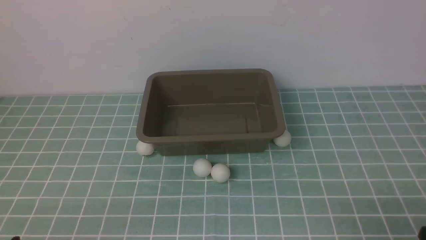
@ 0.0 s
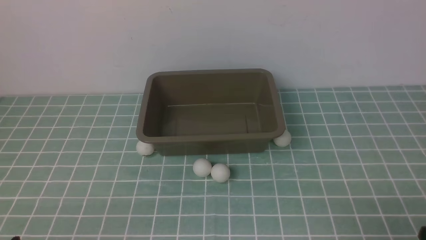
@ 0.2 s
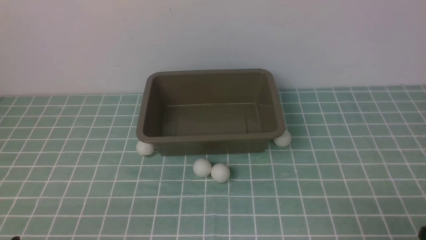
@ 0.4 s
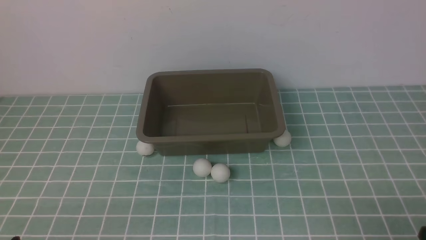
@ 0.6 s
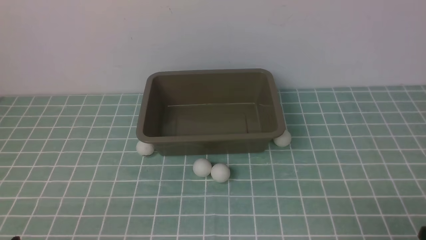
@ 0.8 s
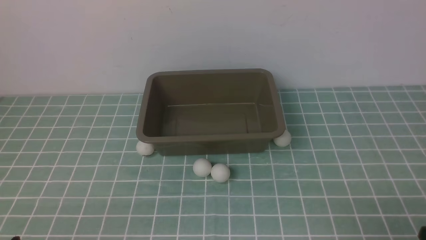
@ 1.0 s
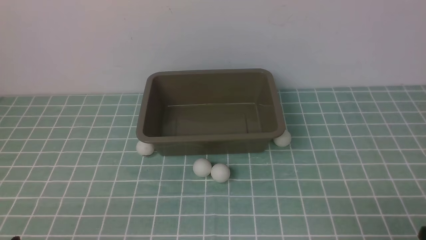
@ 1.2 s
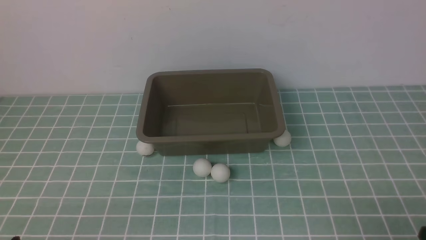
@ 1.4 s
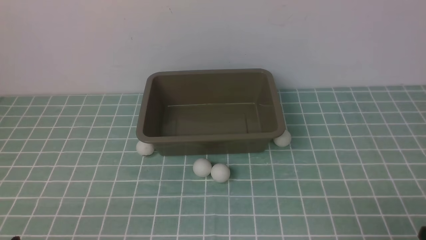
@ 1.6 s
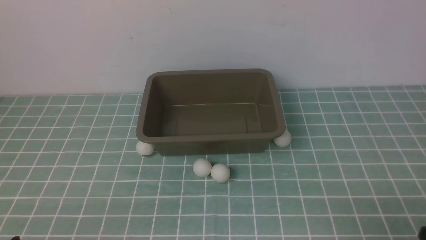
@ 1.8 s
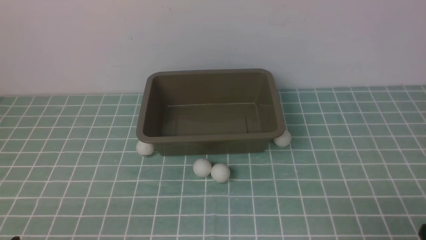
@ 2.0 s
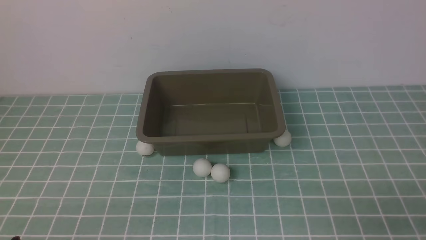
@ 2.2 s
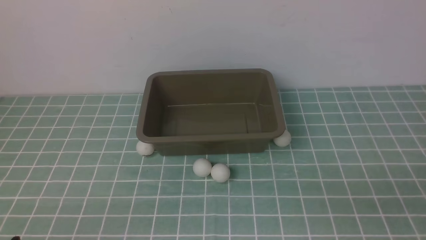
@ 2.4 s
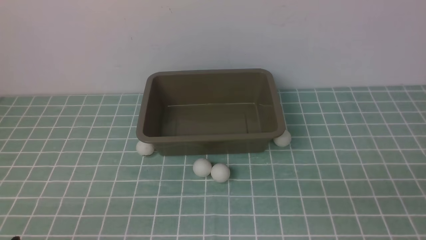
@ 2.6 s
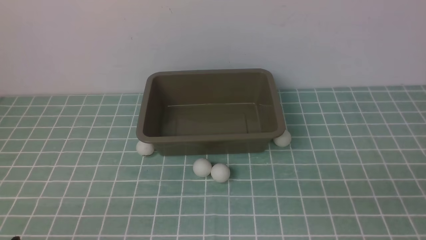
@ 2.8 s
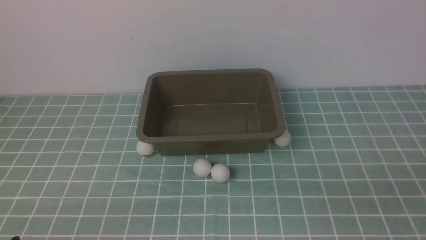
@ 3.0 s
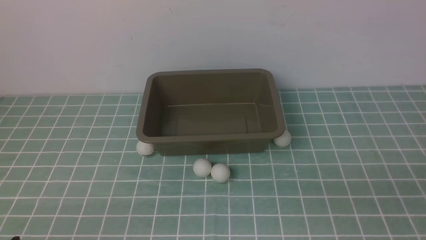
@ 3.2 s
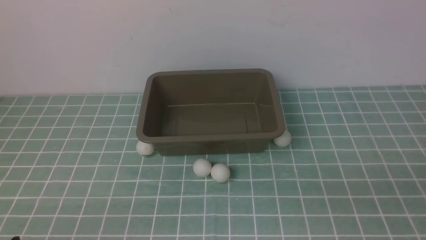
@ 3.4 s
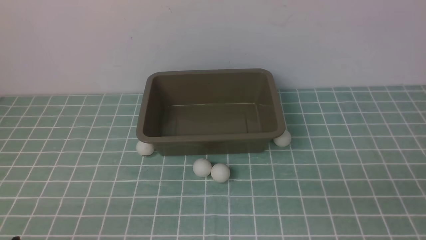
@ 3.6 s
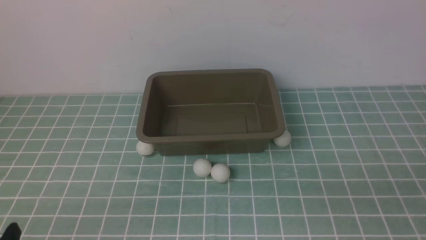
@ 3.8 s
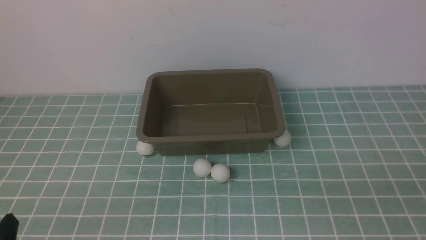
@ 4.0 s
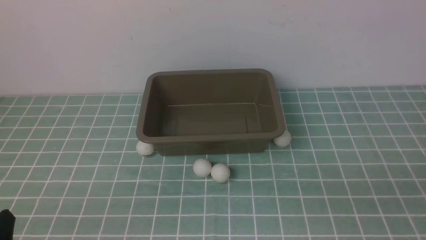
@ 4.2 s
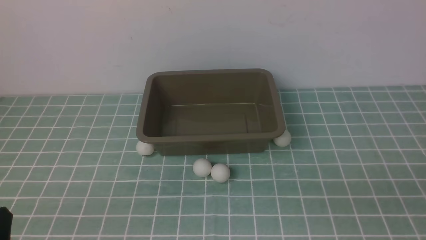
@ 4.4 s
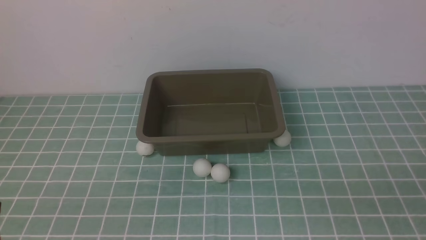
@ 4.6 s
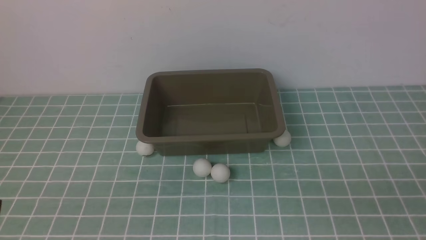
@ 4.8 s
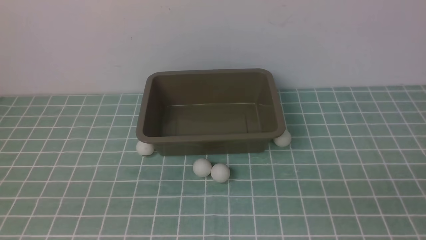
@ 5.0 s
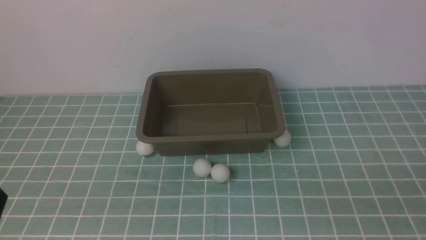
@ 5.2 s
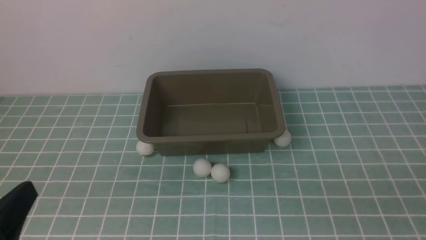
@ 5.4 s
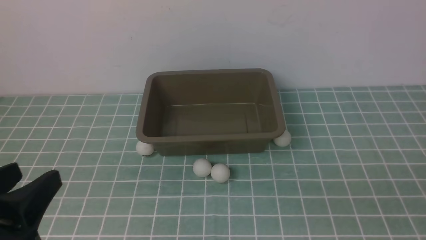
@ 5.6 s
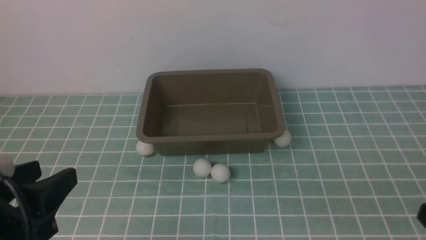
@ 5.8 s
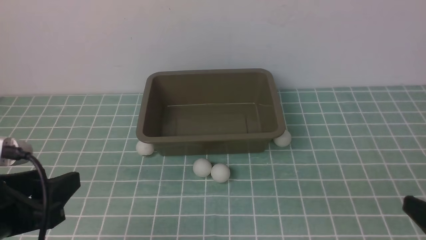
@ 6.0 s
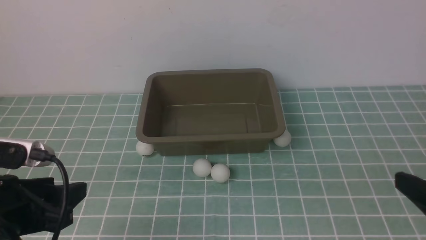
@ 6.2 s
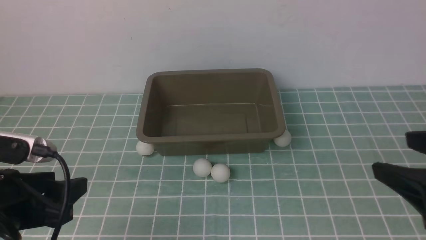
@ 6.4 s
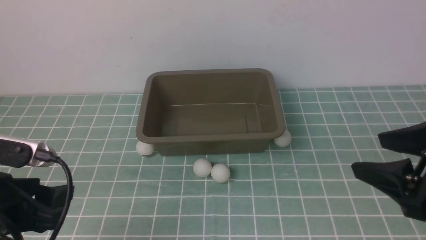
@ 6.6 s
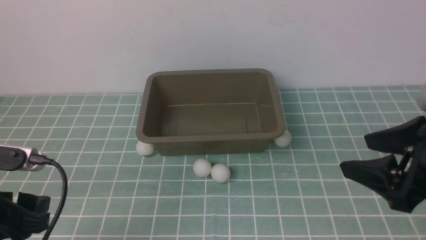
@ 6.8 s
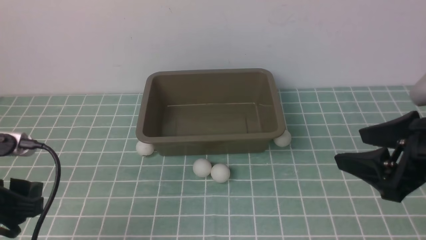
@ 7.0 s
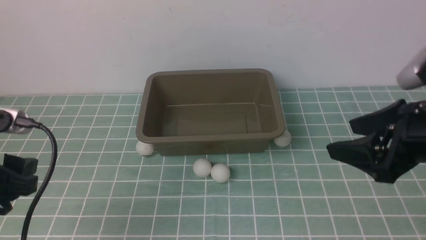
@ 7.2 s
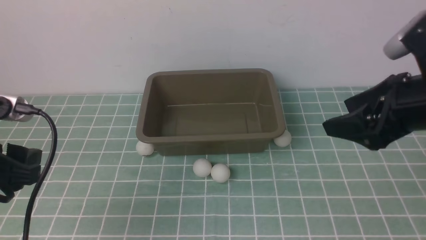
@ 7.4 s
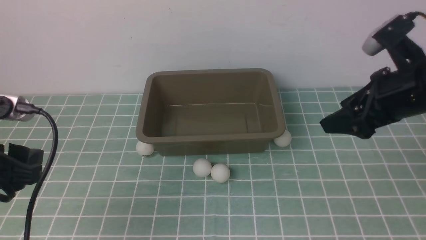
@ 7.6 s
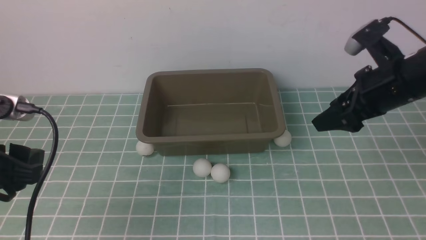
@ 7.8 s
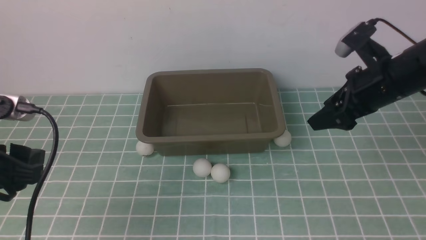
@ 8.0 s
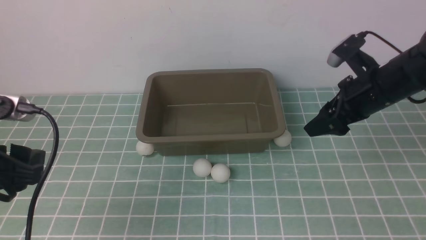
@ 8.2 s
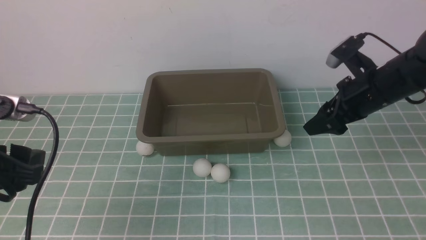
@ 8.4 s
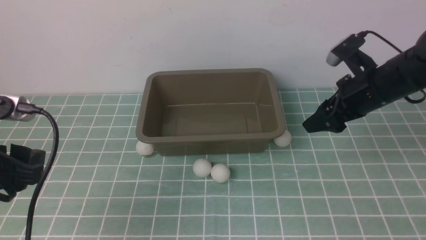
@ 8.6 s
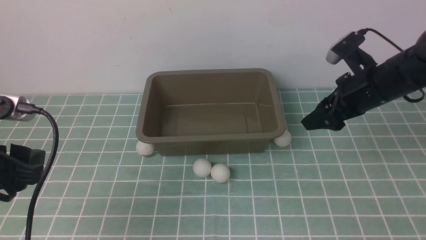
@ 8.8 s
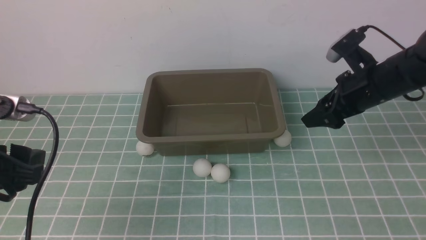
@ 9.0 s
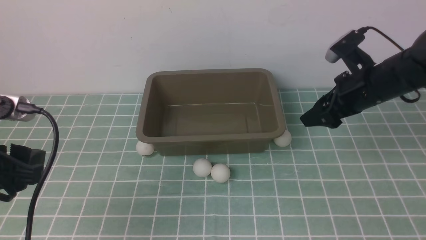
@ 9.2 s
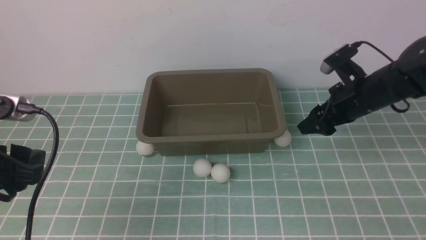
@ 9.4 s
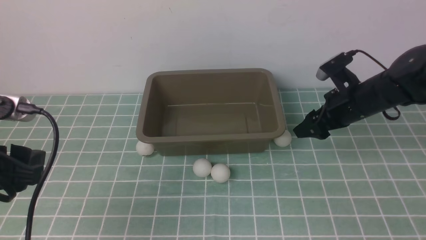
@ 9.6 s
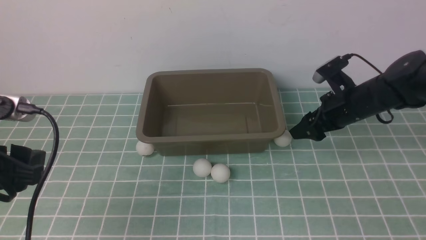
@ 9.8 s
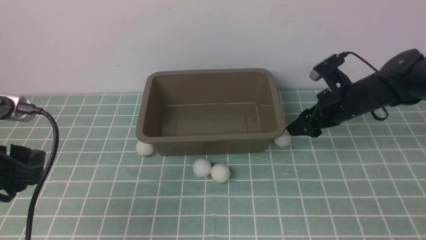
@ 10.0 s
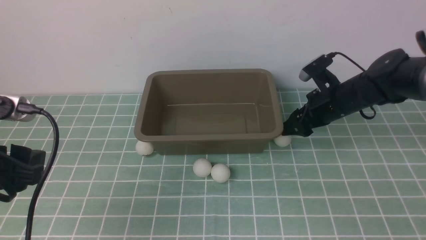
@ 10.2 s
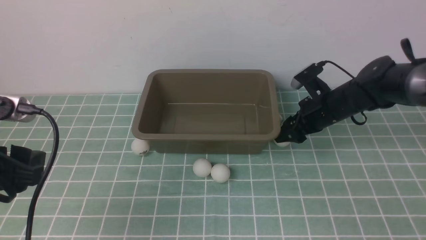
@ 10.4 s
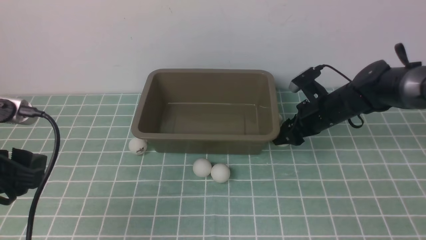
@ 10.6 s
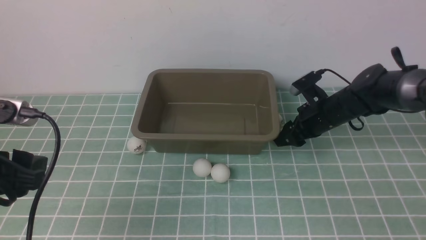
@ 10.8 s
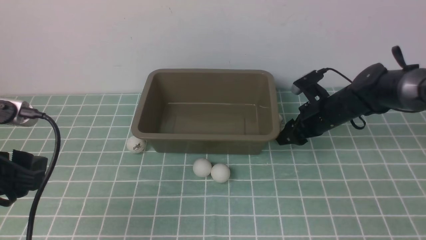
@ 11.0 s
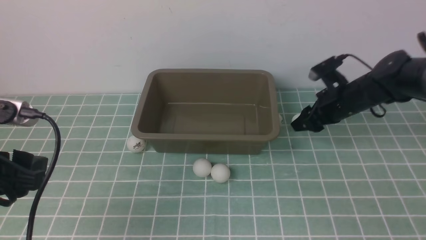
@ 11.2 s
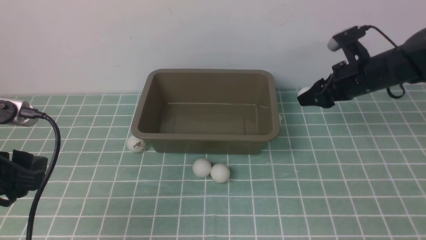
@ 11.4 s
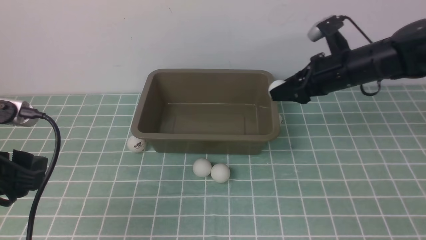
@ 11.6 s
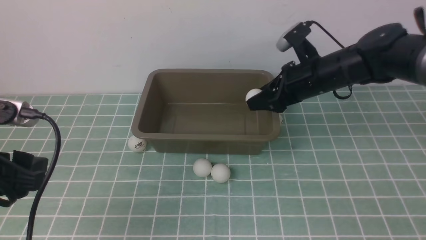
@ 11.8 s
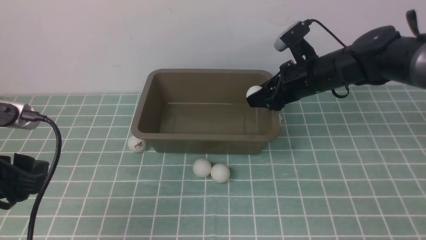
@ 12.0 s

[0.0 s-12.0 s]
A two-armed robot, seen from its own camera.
Step, 0.0 to 11.2 s: use the right arm to clamp the table tennis ball closest to it.
0.0 to 1.6 s: Both grippers stay put.
4.4 to 6.0 s: The left gripper shifts roughly 10 cm forward and upward.
6.0 to 7.6 s: The right gripper moves forward, some 25 cm, while the left gripper changes place by approximately 5 cm.
7.6 to 9.0 s: There are only small adjustments of the grippers.
9.0 to 10.4 s: The right gripper is displaced downward and forward by some 10 cm.
10.4 to 12.0 s: The right gripper heads upward, covering approximately 10 cm.

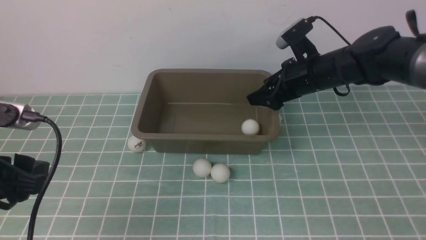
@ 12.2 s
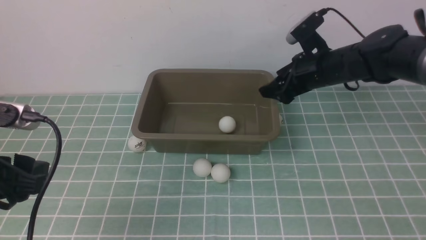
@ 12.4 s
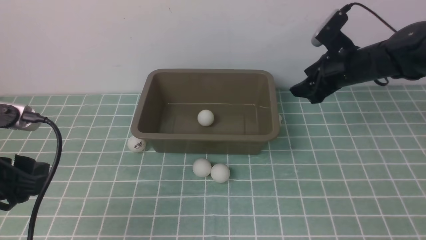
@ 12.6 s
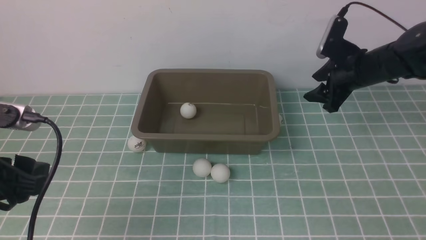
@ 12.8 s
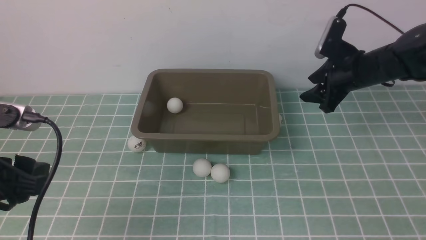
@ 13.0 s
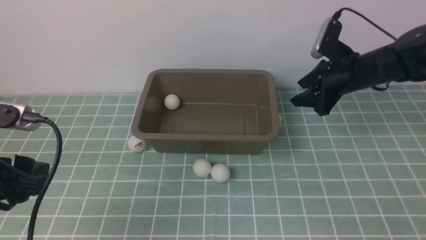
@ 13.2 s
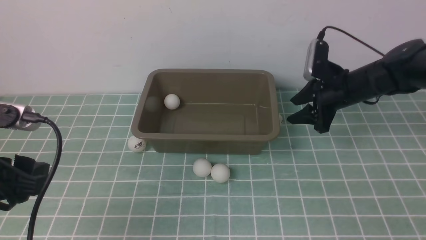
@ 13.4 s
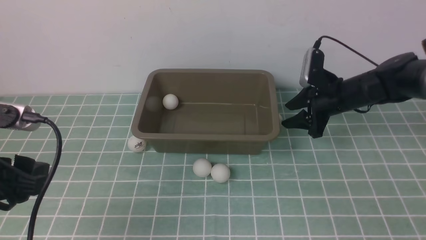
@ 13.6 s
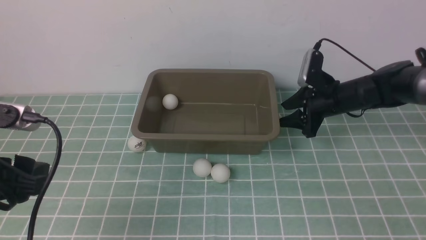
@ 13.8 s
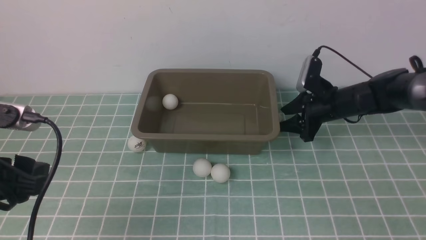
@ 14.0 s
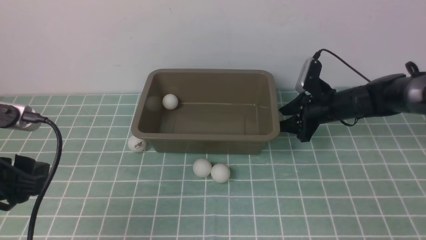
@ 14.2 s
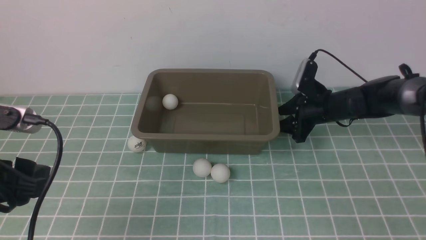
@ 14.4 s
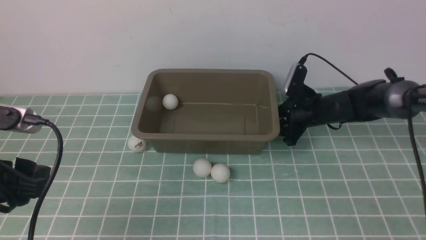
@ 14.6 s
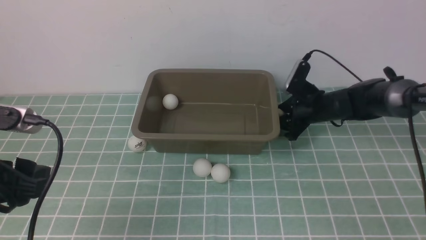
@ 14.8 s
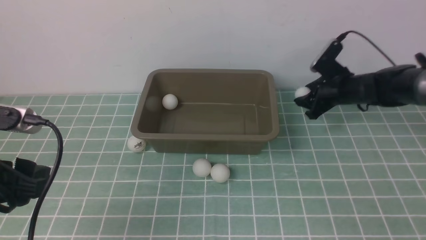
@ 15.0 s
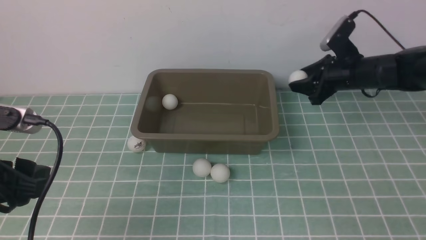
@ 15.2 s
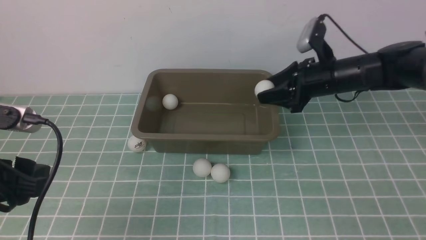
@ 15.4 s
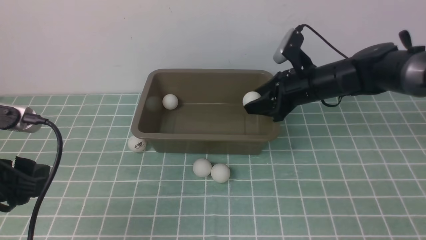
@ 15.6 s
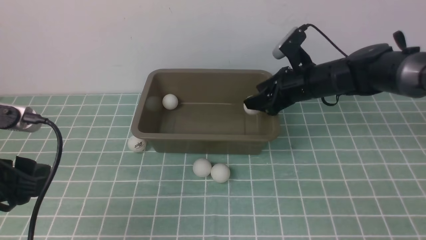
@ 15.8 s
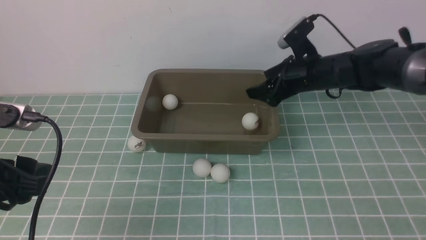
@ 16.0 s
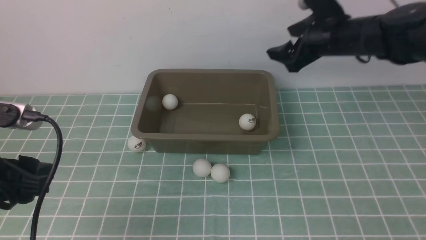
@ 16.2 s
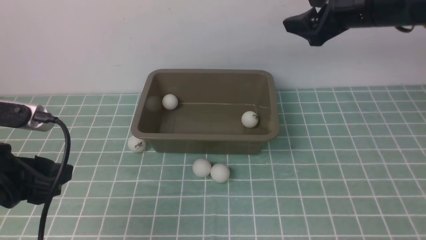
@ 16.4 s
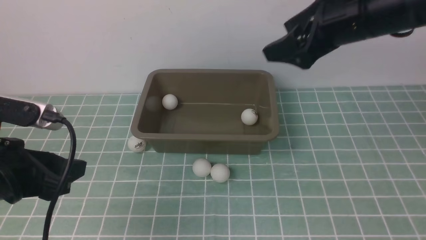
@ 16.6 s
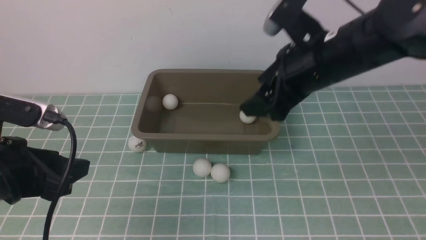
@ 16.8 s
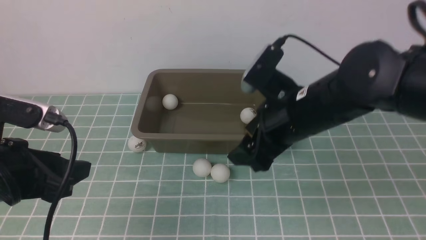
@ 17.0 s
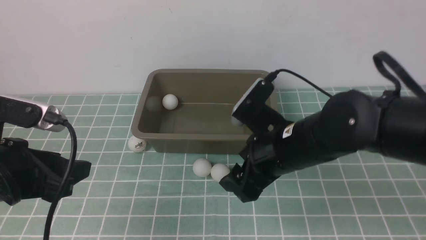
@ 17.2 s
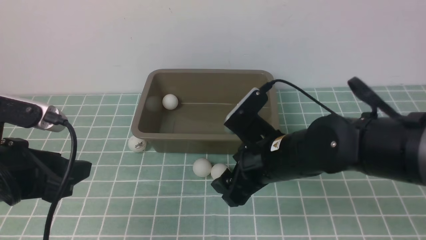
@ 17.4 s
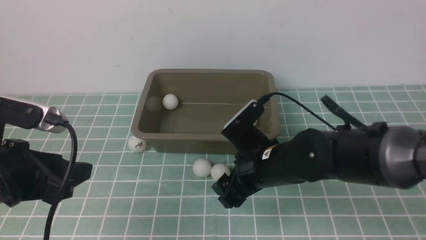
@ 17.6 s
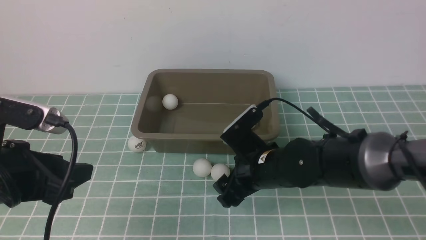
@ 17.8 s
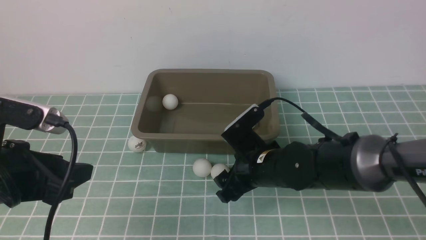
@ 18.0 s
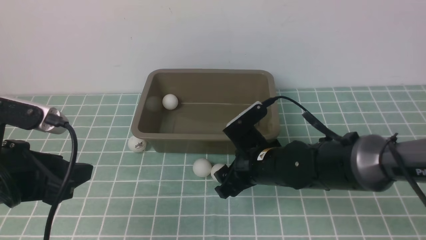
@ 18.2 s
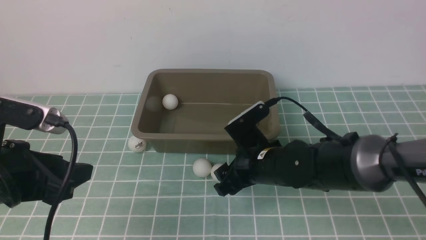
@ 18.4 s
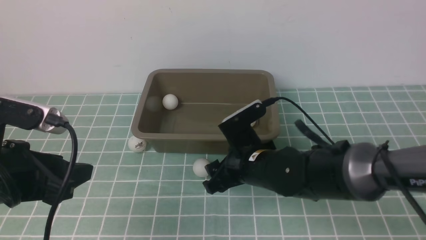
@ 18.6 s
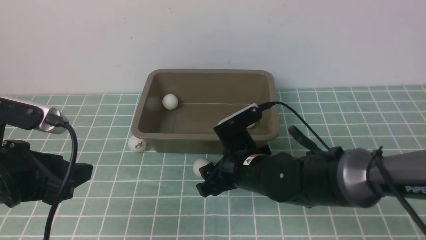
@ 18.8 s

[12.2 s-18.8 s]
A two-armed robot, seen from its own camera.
Step, 12.6 to 15.0 s: use the right arm to clamp the table tennis ball closest to it.
Step, 15.2 to 16.0 s: use the right arm to put the table tennis ball into the box.
12.2 to 13.8 s: The right gripper travels downward and to the right by roughly 10 cm.
13.8 to 15.4 s: The right gripper shifts some 5 cm upward.
15.4 to 17.2 s: The right gripper goes some 20 cm backward and to the left, and opens.
17.2 to 18.8 s: The right gripper moves downward, roughly 5 cm.
